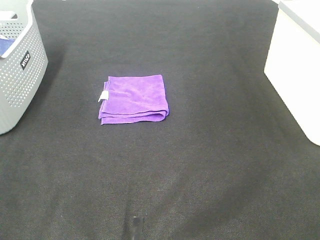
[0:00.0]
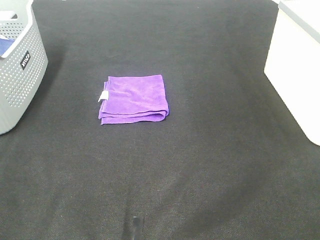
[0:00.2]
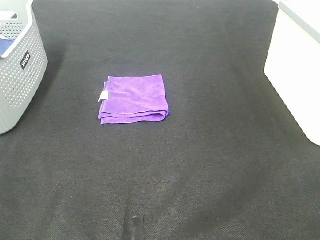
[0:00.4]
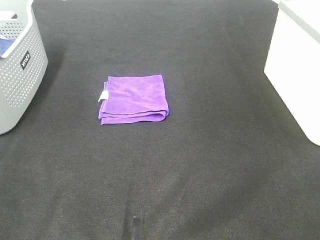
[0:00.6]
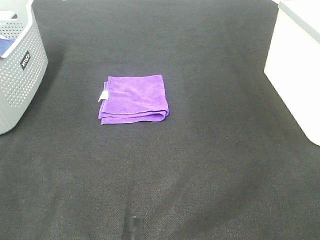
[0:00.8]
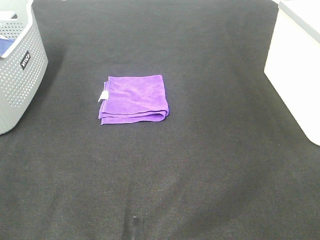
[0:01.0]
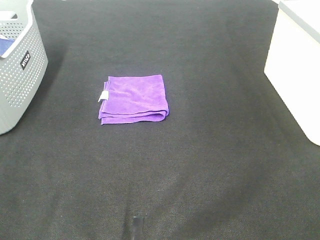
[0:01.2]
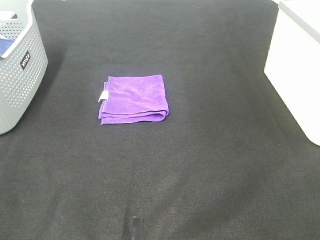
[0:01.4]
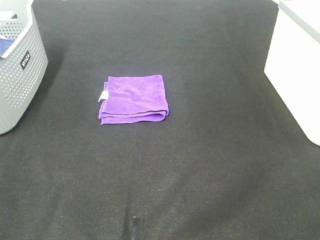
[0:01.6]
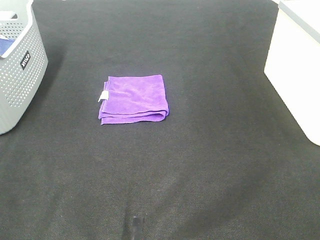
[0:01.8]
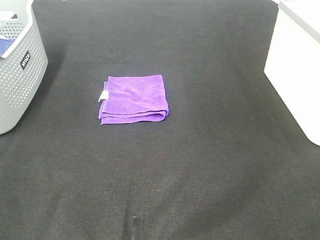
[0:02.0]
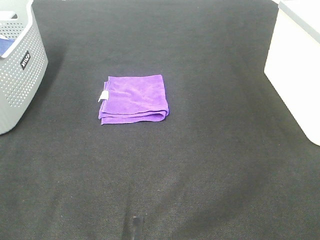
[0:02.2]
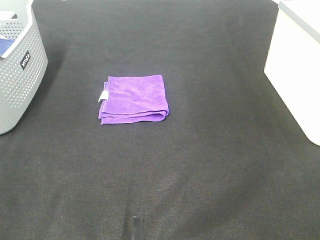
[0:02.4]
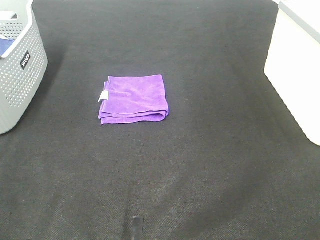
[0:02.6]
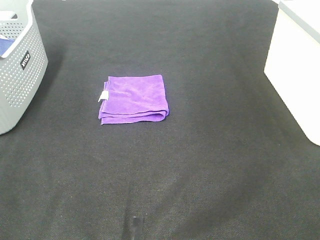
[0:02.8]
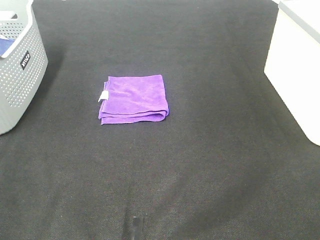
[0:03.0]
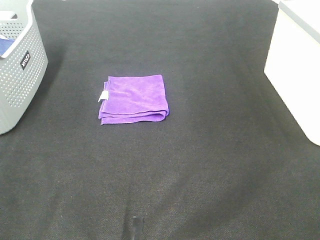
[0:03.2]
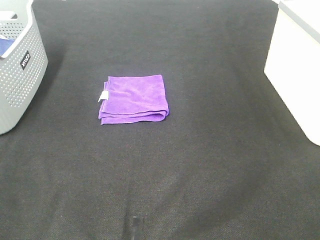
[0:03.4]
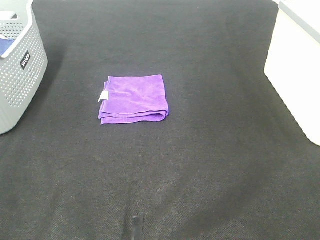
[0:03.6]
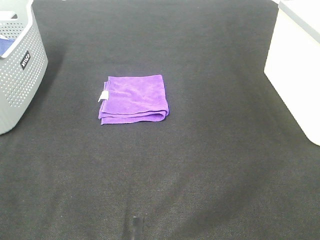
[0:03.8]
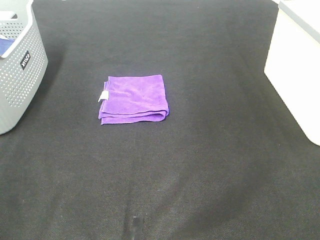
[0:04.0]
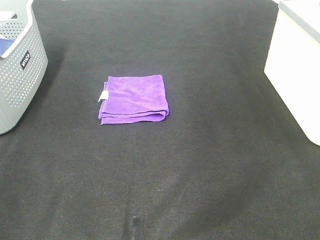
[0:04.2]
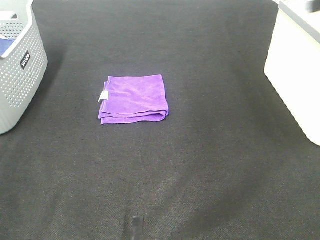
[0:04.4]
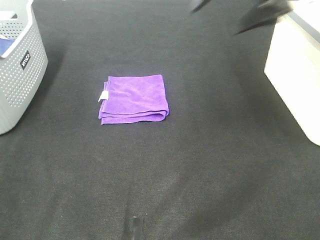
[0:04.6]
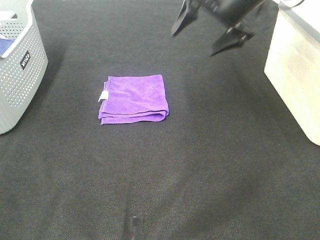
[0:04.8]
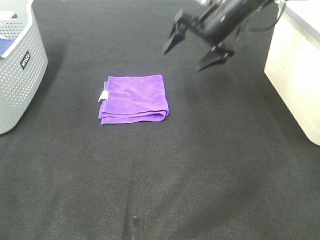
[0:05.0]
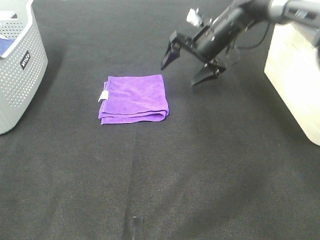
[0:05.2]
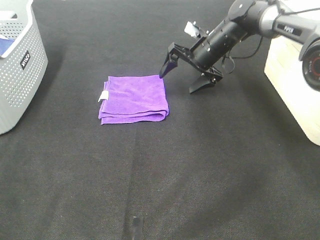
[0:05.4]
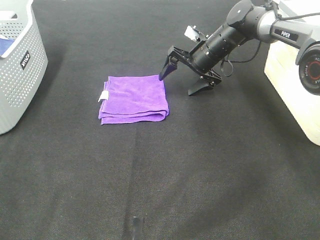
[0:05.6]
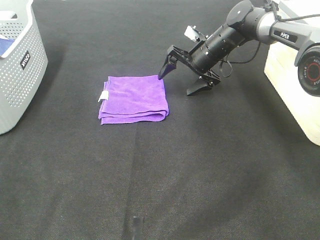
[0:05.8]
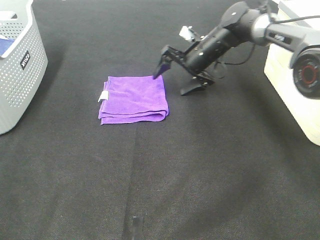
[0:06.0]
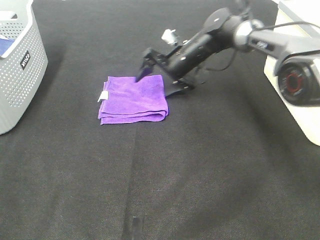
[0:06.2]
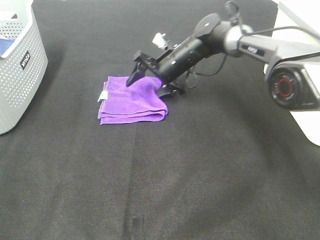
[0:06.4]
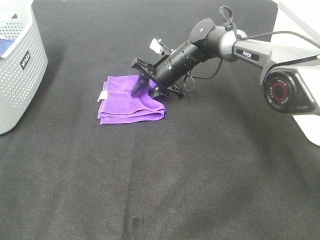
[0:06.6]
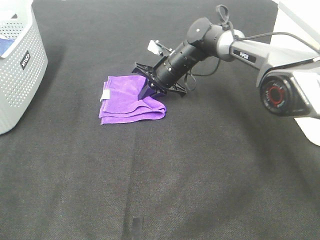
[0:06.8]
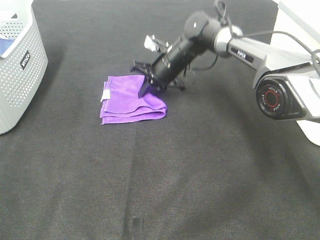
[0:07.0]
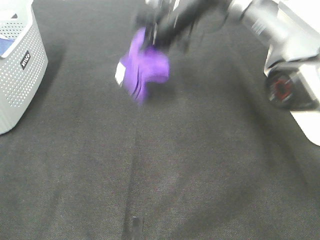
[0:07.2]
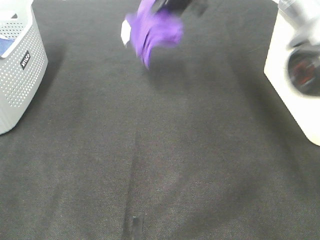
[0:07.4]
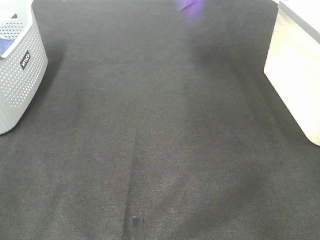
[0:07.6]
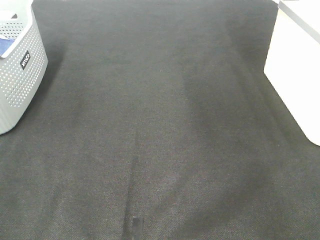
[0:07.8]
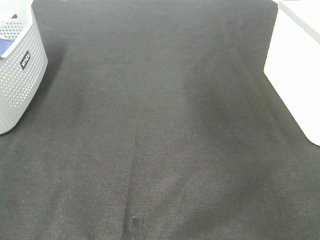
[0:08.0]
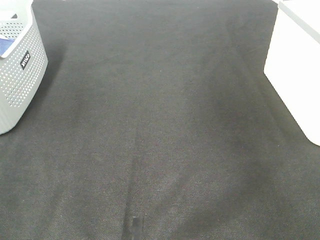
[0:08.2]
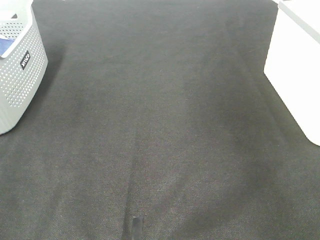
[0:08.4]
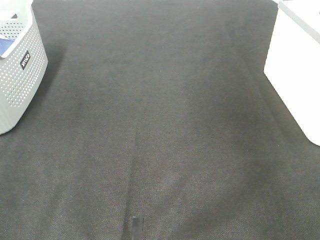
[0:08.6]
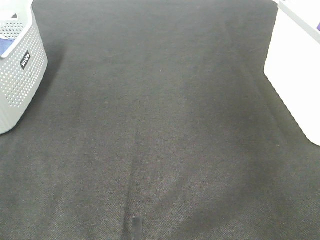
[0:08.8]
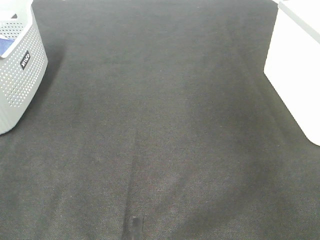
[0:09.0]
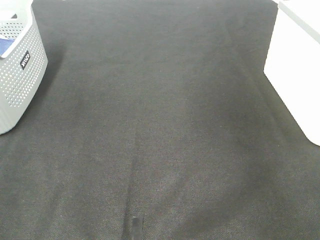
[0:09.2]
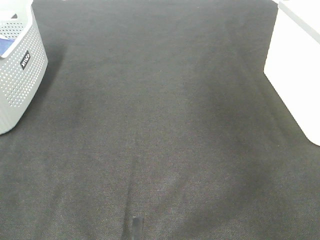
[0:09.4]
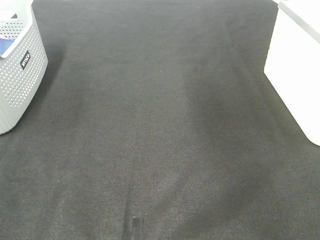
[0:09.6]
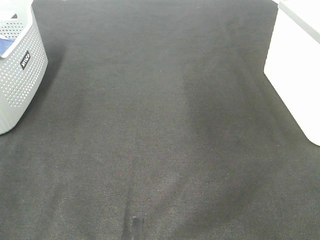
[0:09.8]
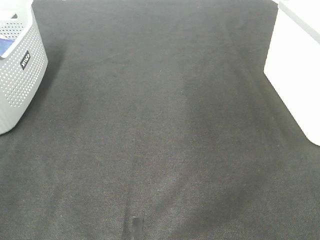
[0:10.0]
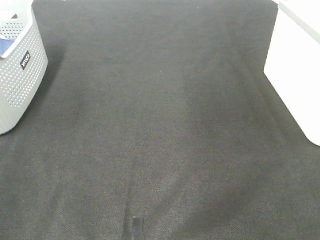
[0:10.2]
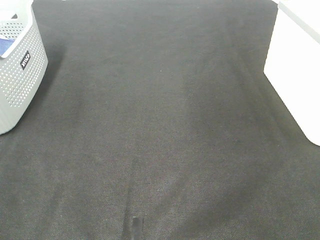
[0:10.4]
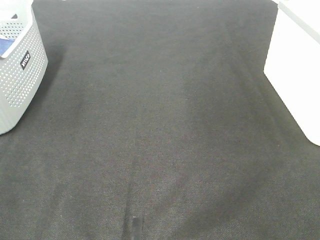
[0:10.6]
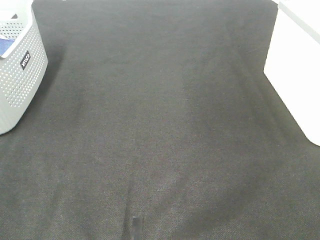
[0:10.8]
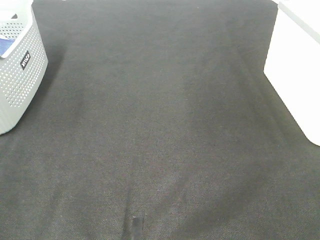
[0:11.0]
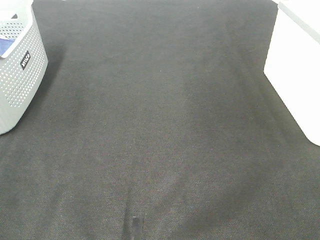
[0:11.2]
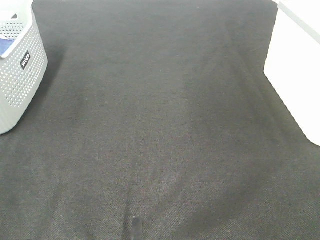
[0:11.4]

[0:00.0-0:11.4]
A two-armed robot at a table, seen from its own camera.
Step, 0:00.0 to 0:06.8: Right hand: grab the folded purple towel.
Step, 0:07.0 to 0:08.8: Right hand: place the purple towel in right basket.
0:00.0 to 0:02.8: The two grippers keep their place.
0:04.2 to 0:05.6: The right gripper shifts some 40 cm downward, forward and to the left.
0:05.6 to 0:07.2: The right gripper goes roughly 15 cm upward and to the left, and closes up.
0:07.2 to 0:08.6: The right gripper goes about 35 cm to the right.

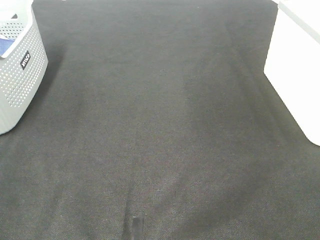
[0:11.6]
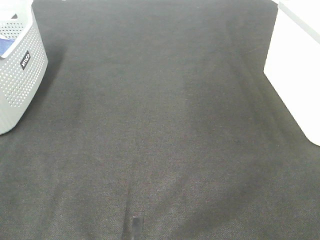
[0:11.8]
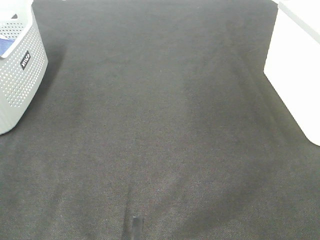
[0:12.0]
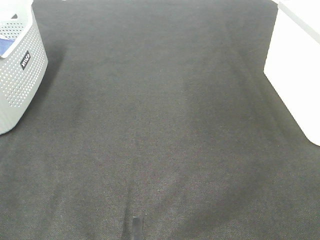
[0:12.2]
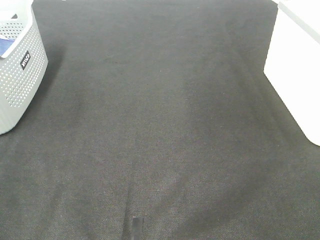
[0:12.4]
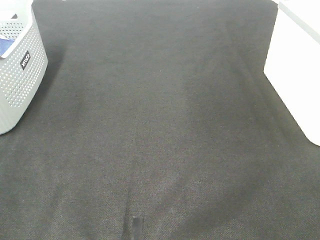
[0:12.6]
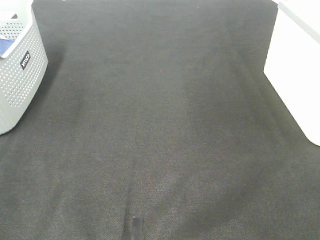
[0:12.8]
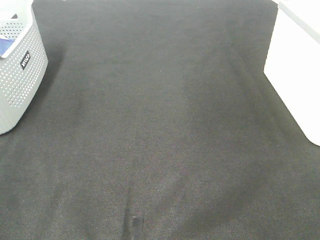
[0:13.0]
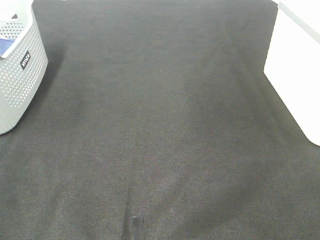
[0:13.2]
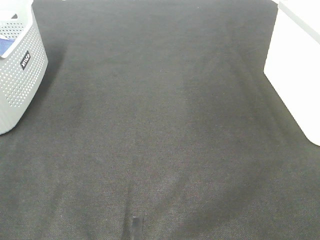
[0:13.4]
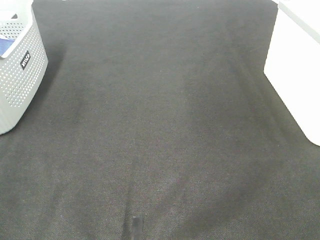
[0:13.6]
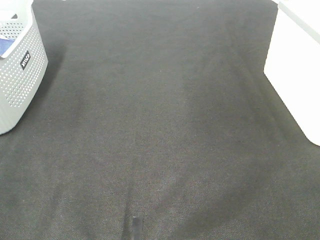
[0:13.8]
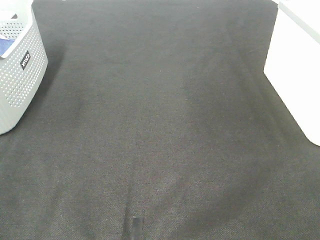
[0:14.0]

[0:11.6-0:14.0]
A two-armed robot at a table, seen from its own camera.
0:11.6 to 0:14.0: Both grippers stay put.

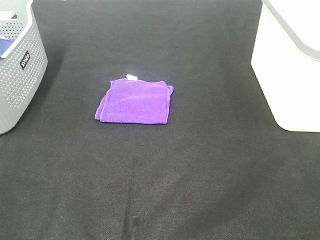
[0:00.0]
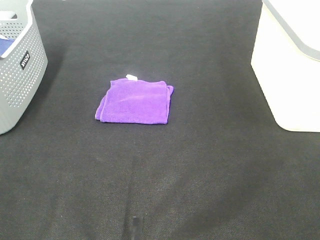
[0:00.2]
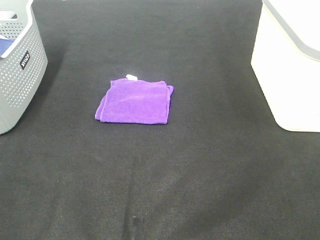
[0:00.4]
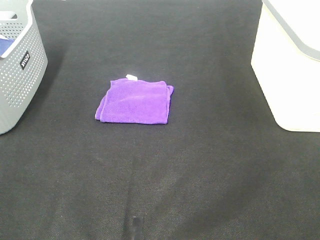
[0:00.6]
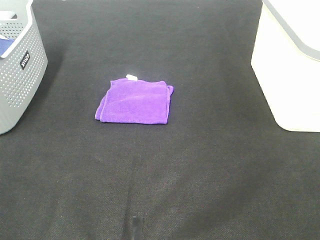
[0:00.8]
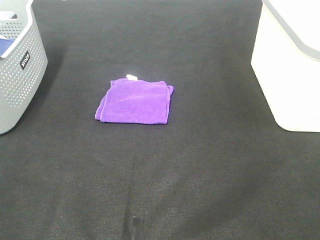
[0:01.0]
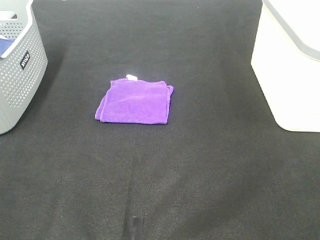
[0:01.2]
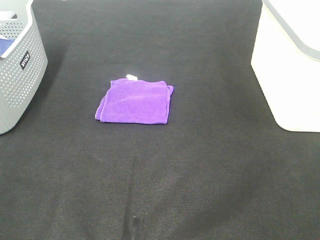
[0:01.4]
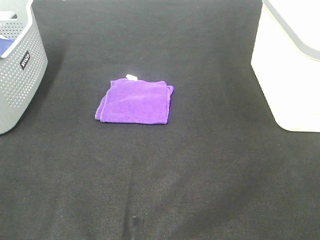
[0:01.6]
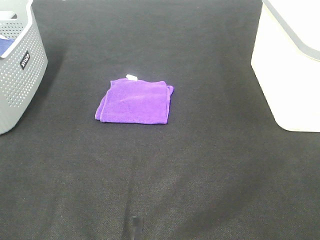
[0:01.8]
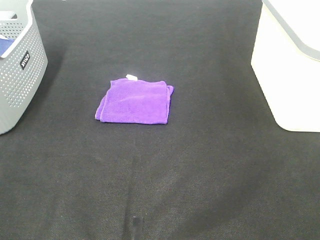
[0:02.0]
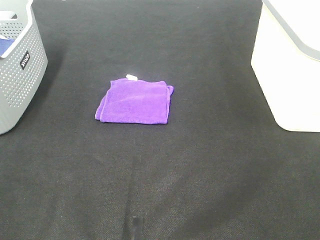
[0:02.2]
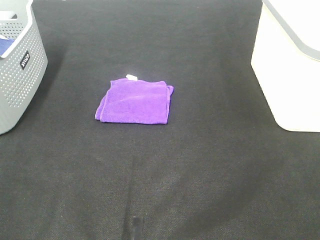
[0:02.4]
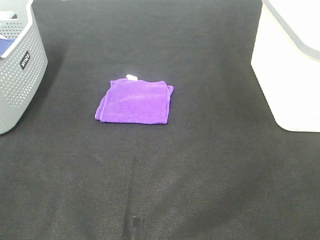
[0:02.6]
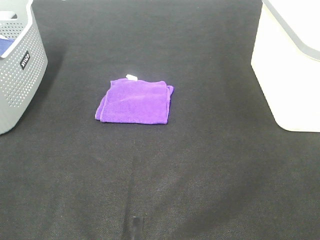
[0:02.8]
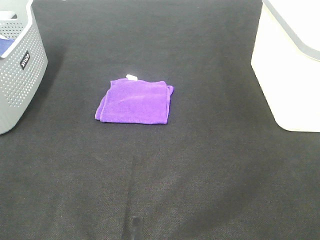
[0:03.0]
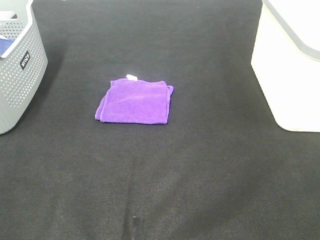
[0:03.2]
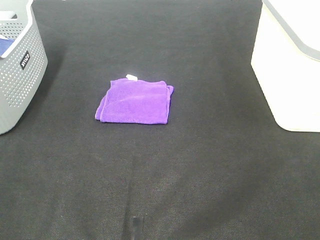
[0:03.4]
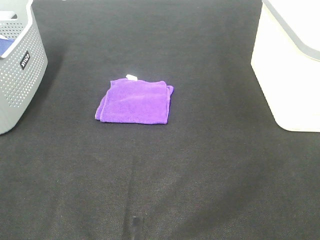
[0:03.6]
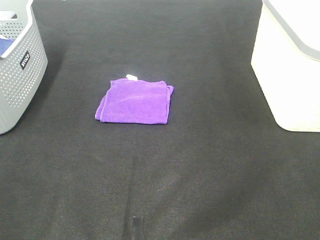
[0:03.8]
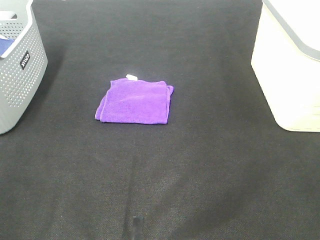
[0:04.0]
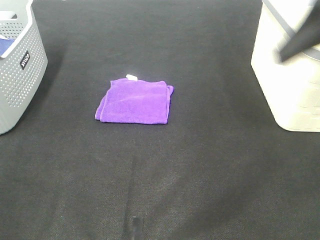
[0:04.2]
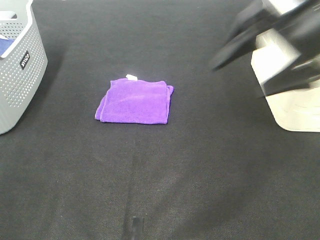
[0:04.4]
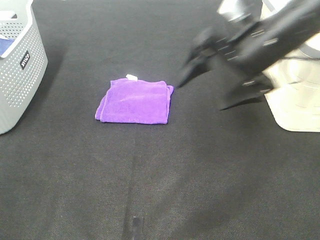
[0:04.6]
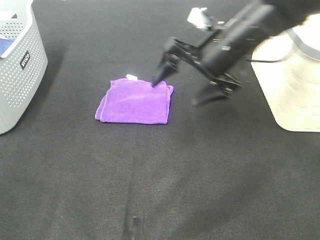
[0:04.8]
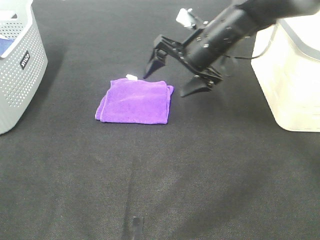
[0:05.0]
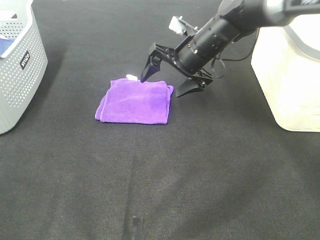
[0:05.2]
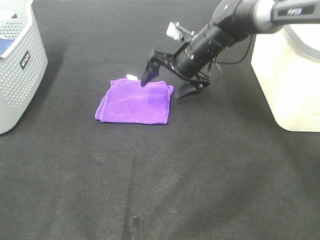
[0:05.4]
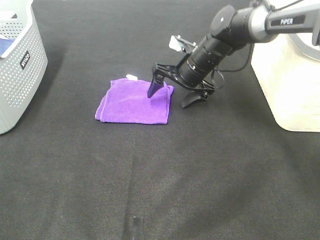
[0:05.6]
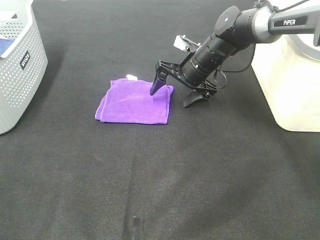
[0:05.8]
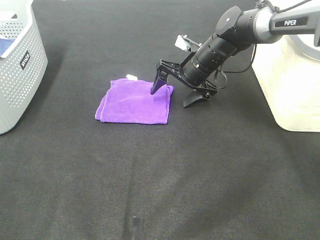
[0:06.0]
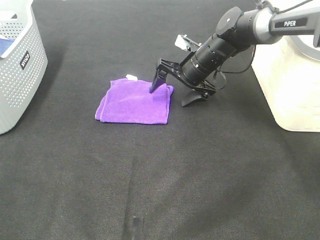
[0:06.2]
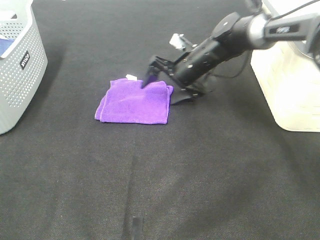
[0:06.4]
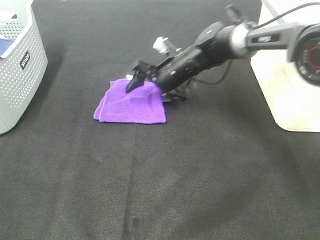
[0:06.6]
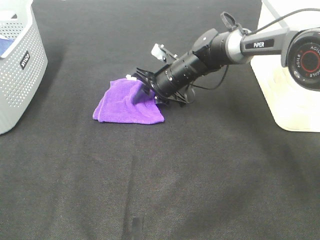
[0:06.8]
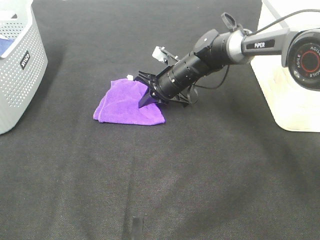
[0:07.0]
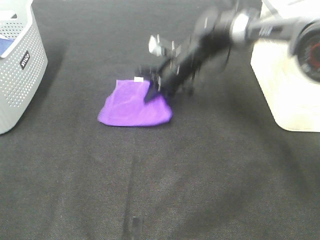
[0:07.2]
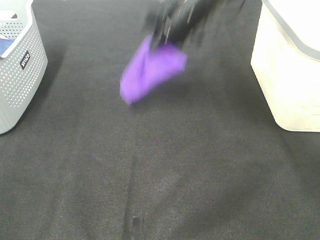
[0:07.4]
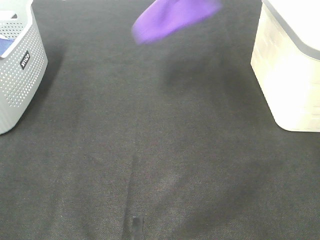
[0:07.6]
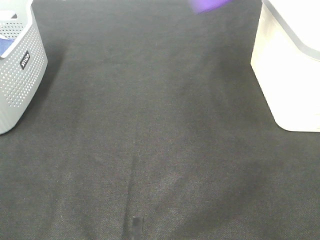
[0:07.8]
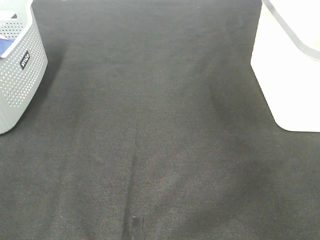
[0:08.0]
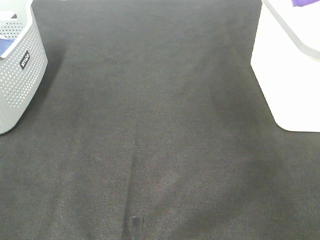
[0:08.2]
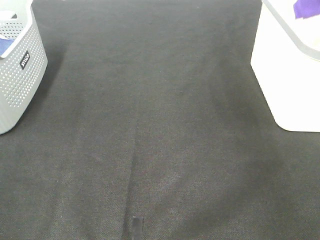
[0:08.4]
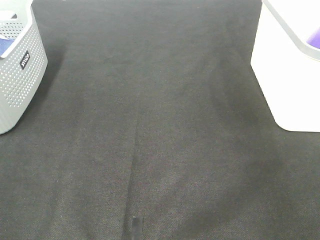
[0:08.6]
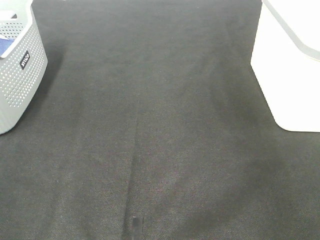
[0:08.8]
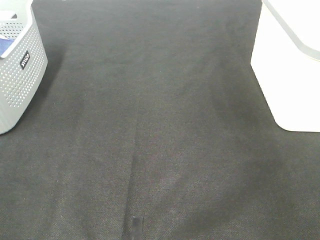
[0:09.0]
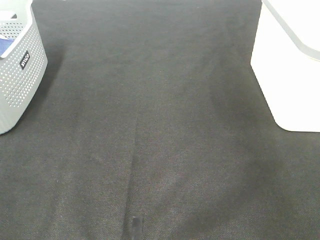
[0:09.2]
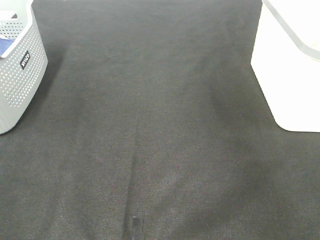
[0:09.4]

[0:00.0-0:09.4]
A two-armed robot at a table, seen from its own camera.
Step, 0:00.0 to 0:06.8: Right hand: grab the folded purple towel.
Step, 0:07.0 to 0:08.6: Right hand: place the purple towel in right basket.
0:00.0 to 0:03.2: Both grippers stay put.
0:03.2 to 0:04.8: The right gripper shifts some 40 cm forward and to the left.
0:04.8 to 0:06.2: The right gripper goes about 15 cm downward and forward.
0:06.2 to 0:07.8: The right gripper moves upward and to the right, some 35 cm, and closes its fingers.
0:07.8 to 0:09.4: The right gripper is displaced to the right by roughly 5 cm, and opens up.
